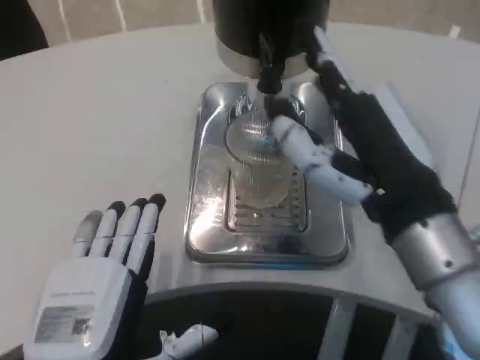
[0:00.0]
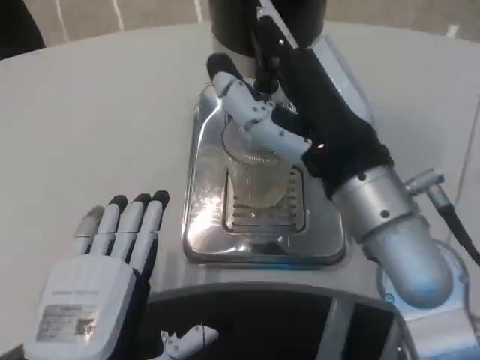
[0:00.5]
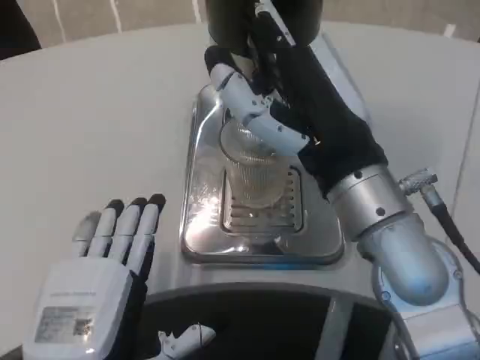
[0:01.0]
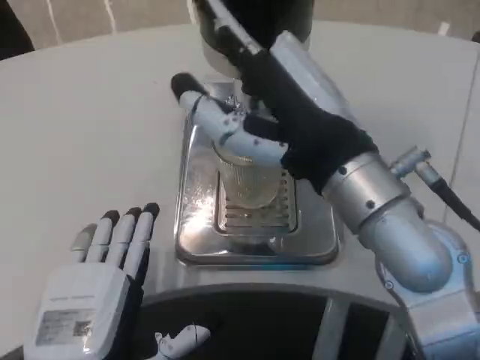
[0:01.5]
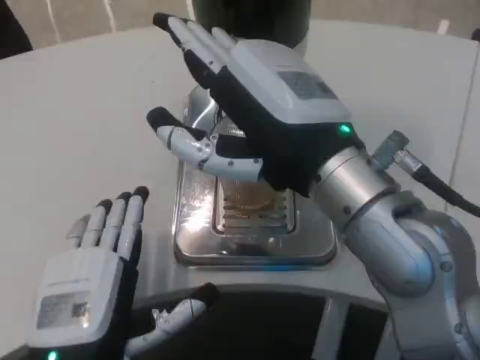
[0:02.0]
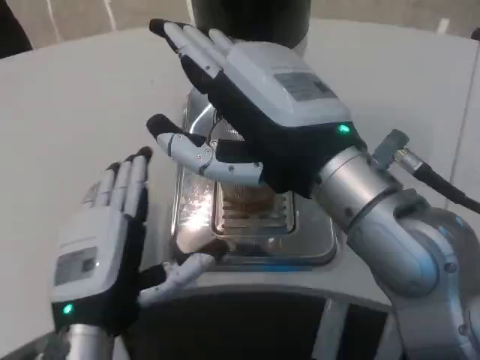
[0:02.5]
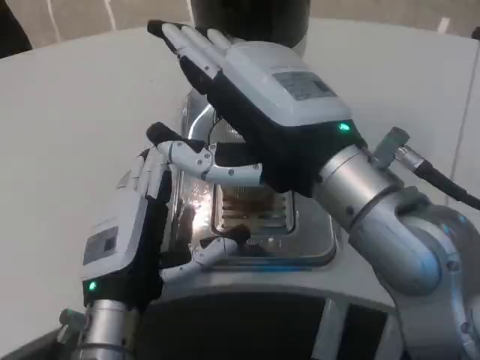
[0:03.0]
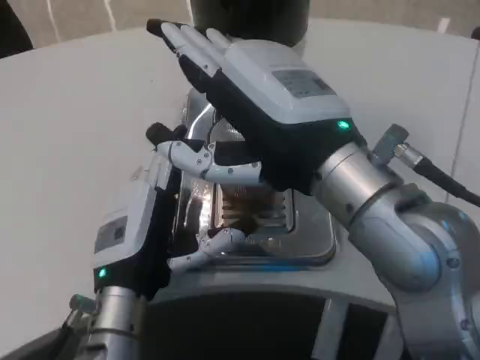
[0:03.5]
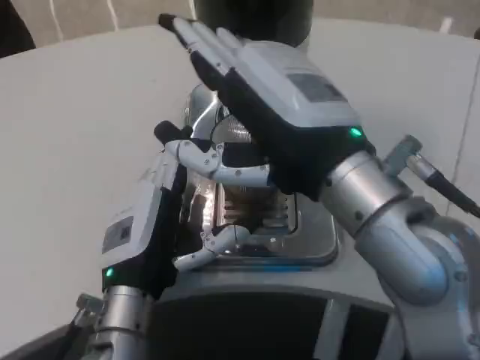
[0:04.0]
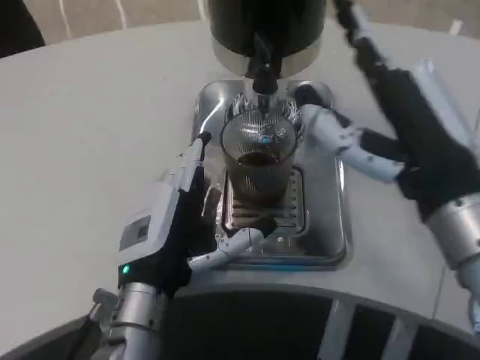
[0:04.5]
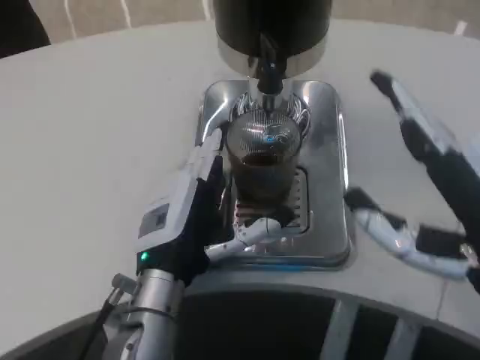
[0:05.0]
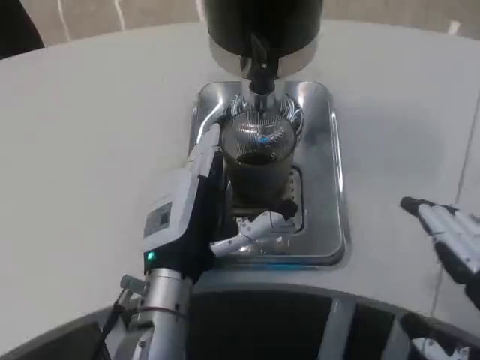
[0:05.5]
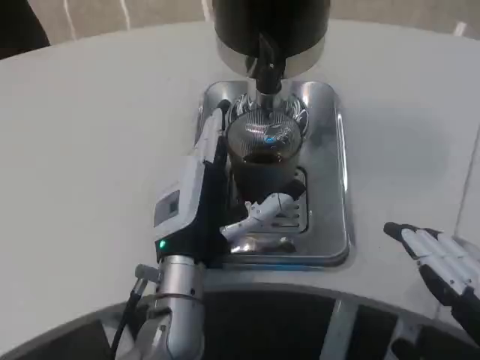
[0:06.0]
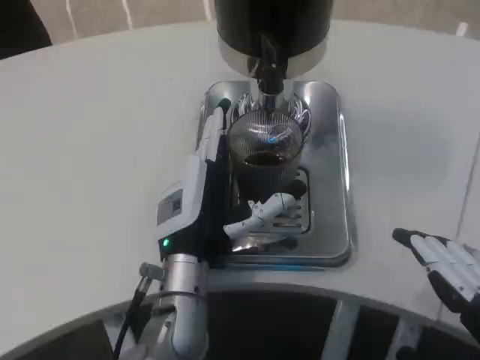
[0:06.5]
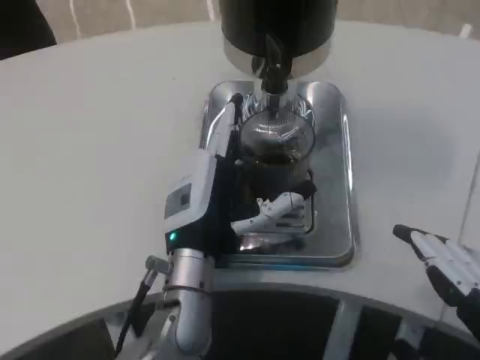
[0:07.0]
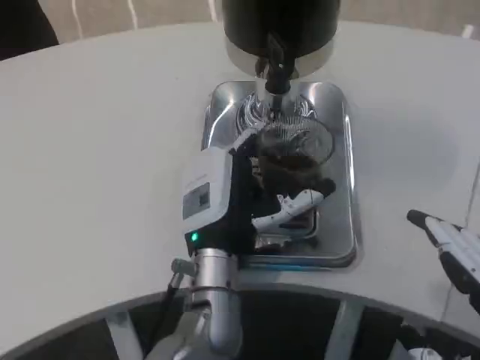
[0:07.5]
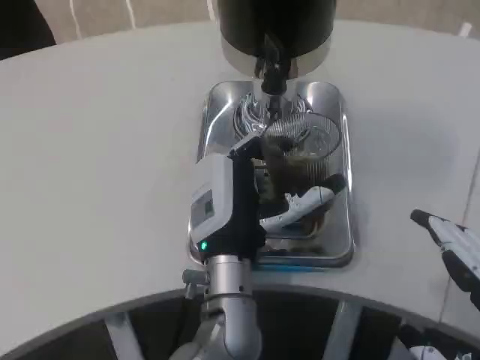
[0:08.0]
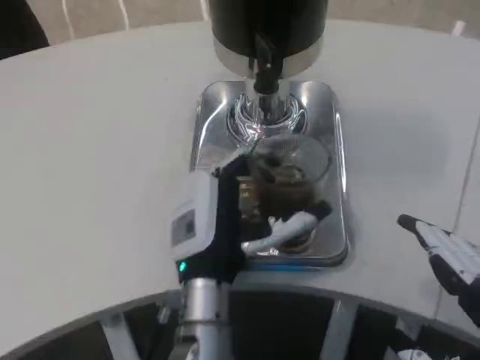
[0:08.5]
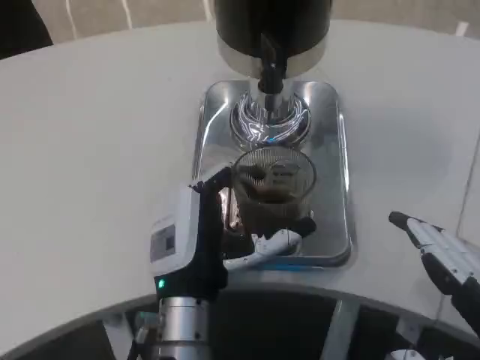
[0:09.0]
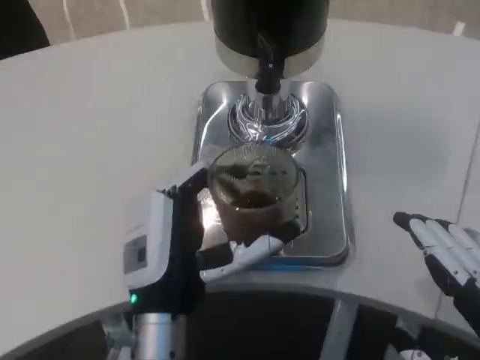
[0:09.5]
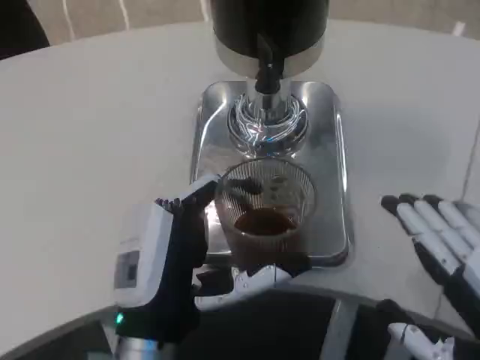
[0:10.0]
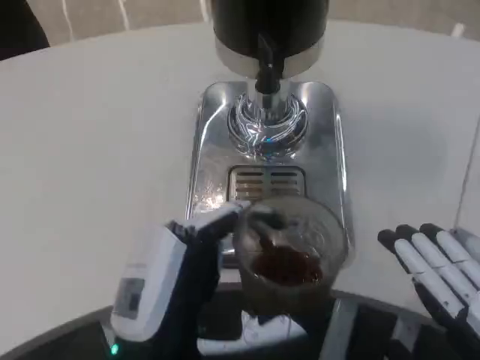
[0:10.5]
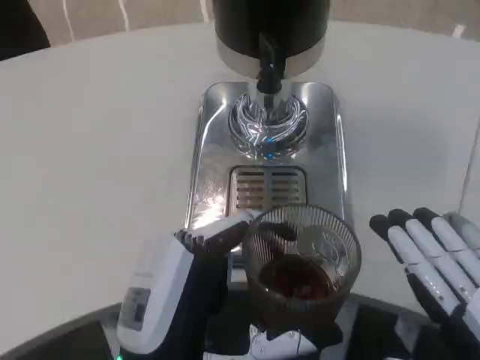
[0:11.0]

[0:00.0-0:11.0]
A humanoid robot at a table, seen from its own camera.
Task of the whole recording: Grasp the cup under the faucet to collect the drink, then remove the cup.
0:00.0 to 0:02.0: The right hand shifts by some 5 cm.
0:02.0 to 0:03.5: The left hand heads forward, covering some 10 cm.
0:03.5 to 0:05.5: The right hand moves to the right, backward and downward, about 20 cm.
0:05.5 to 0:07.5: The left hand shifts about 5 cm to the right.
0:07.5 to 0:09.0: The left hand ends up about 5 cm from where it was.
0:09.0 to 0:11.0: The left hand shifts about 10 cm backward.

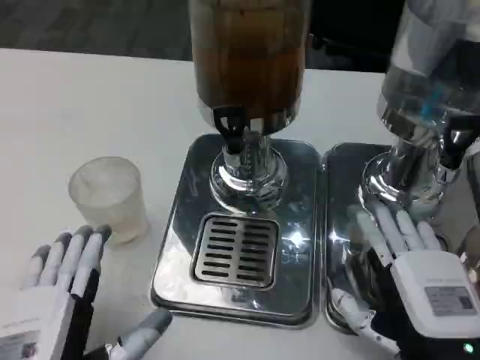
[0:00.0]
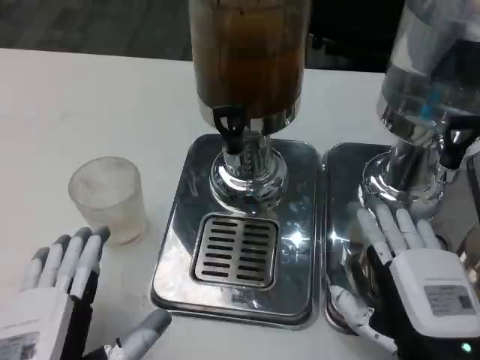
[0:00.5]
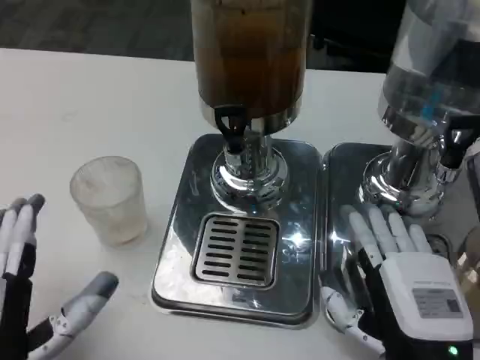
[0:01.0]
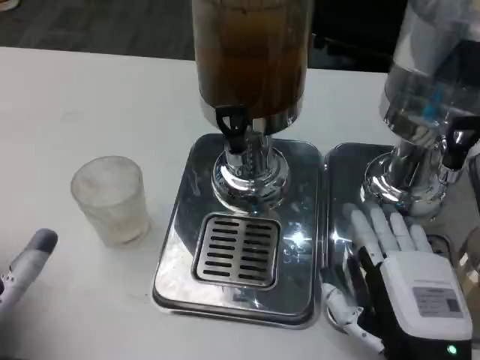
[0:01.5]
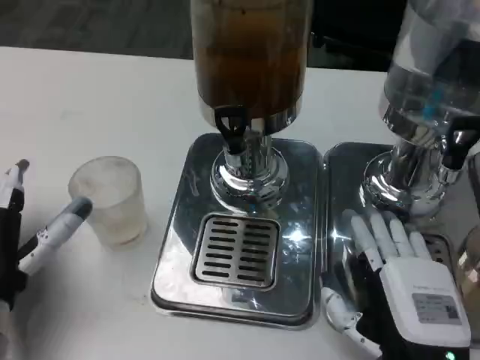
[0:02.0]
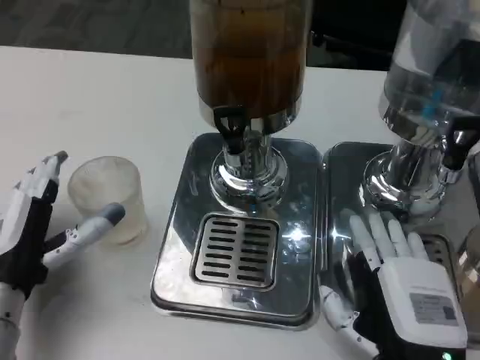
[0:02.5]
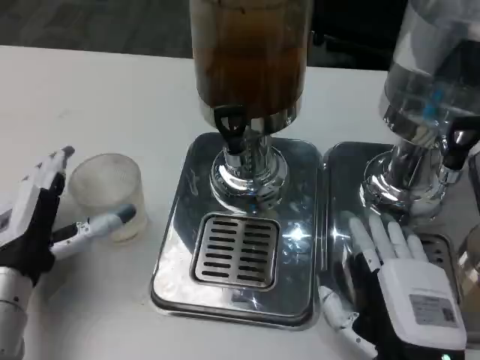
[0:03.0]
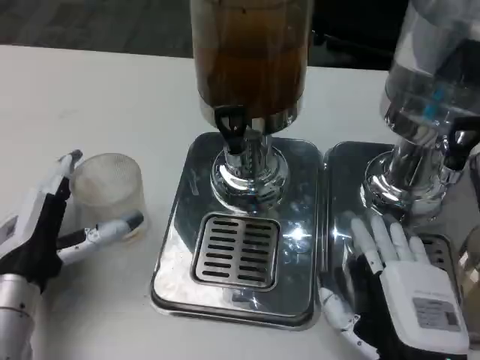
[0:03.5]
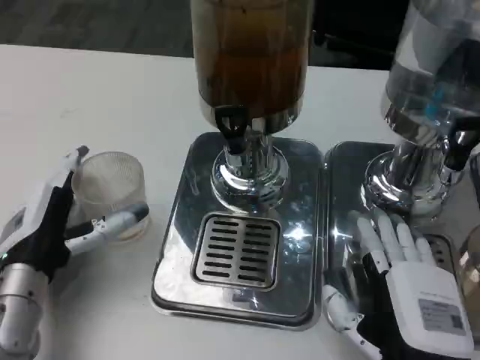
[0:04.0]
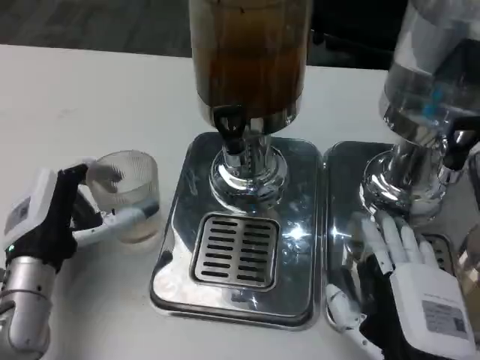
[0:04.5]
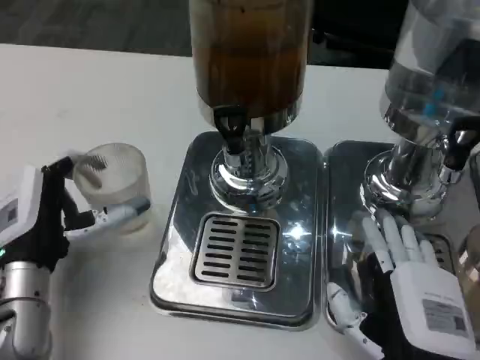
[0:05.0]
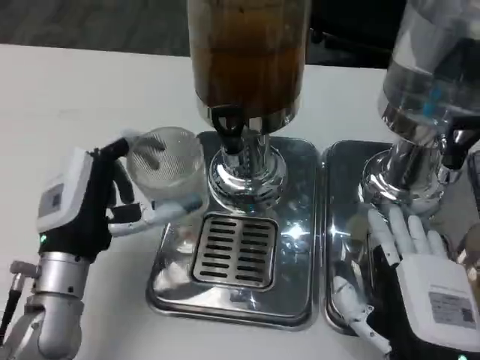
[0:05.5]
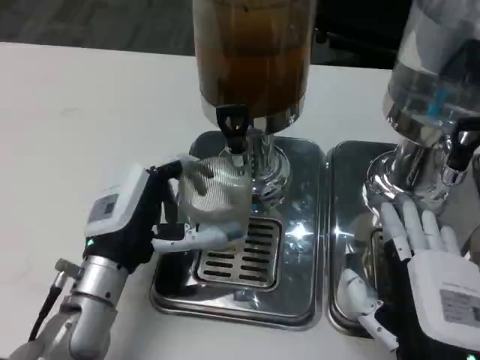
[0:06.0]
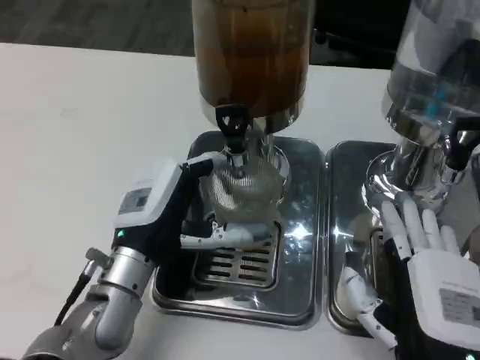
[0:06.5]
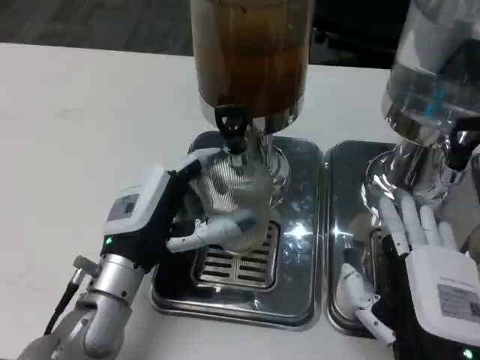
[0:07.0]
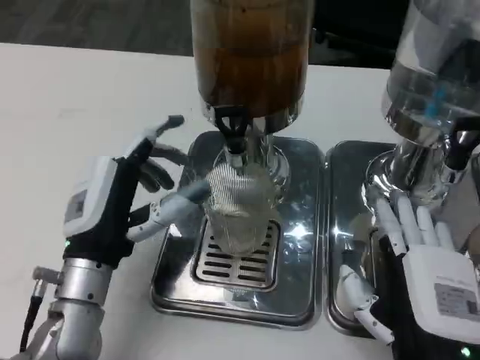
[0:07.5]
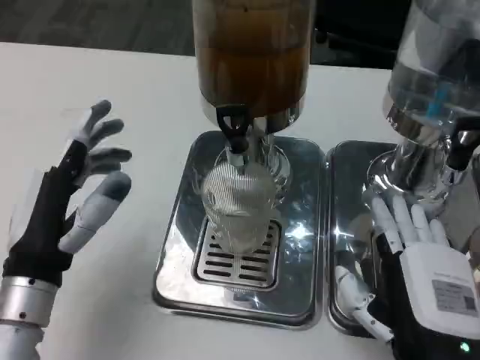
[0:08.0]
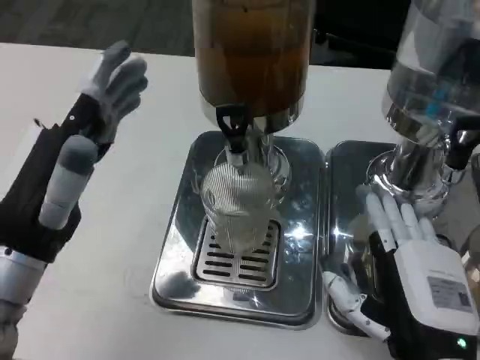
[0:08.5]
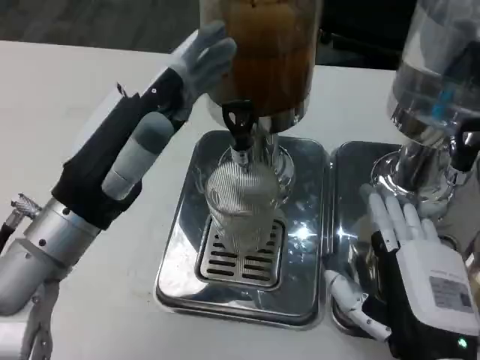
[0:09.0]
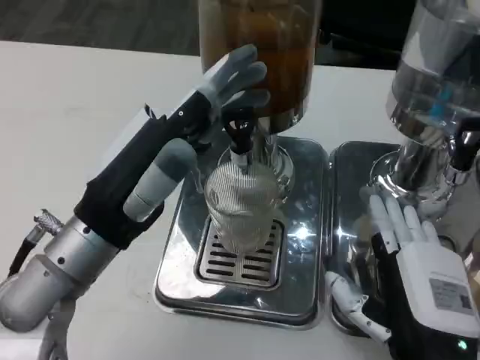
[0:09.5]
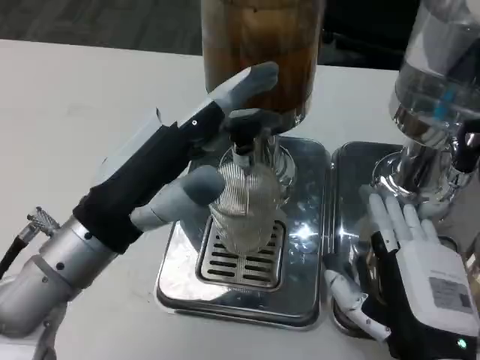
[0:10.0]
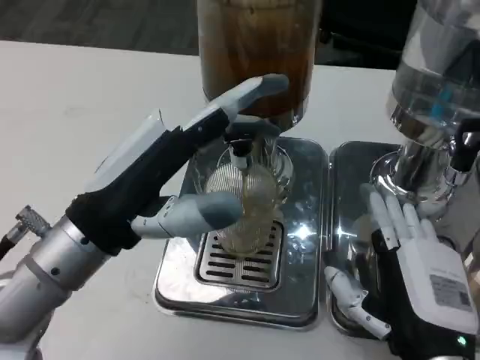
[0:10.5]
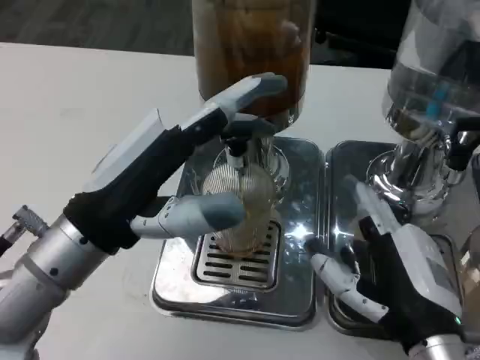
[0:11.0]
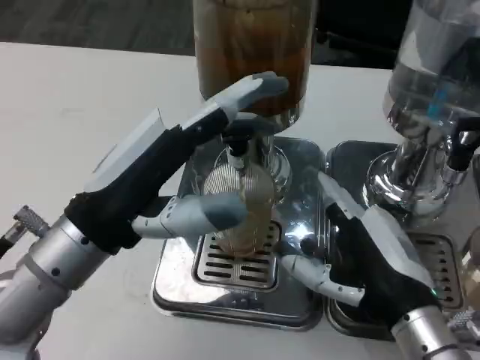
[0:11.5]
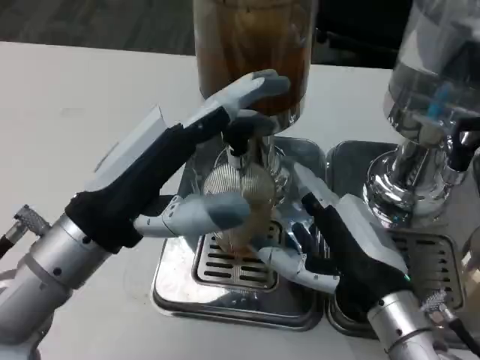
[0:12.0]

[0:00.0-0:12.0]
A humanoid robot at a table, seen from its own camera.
Task of the whole recording: Grasp the cup under the faucet to collect the drink, then remove the cup.
0:00.0 to 0:02.0: The left hand is displaced forward and to the left by approximately 15 cm.
0:02.0 to 0:04.0: The hands move only a little.
0:04.0 to 0:06.0: The left hand moves to the right, roughly 5 cm.
0:06.0 to 0:08.0: The left hand goes roughly 5 cm to the left.
0:08.0 to 0:10.0: The left hand travels upward by roughly 10 cm.
0:10.0 to 0:12.0: The right hand moves forward, about 5 cm.

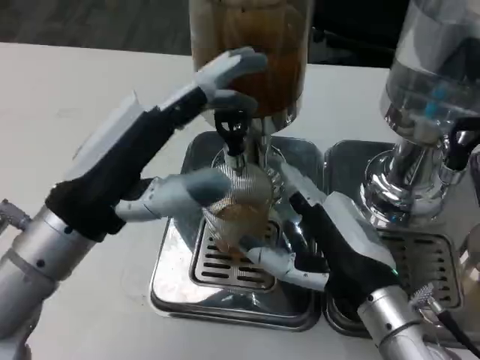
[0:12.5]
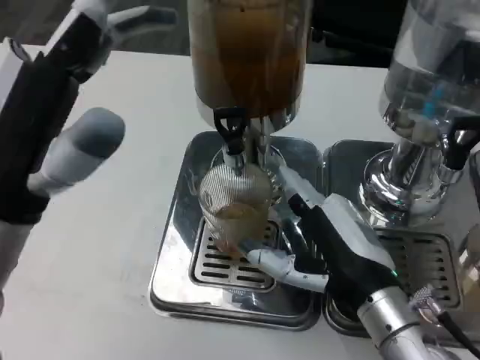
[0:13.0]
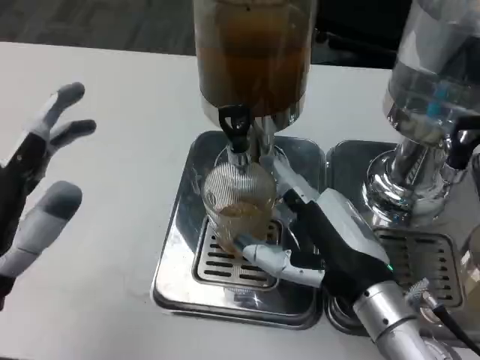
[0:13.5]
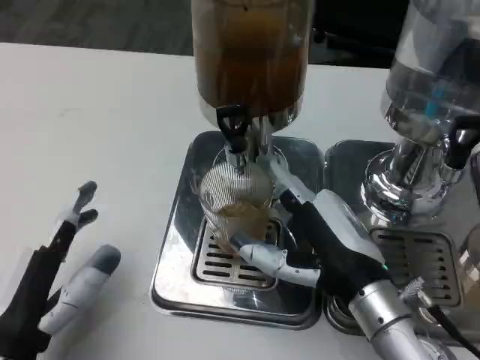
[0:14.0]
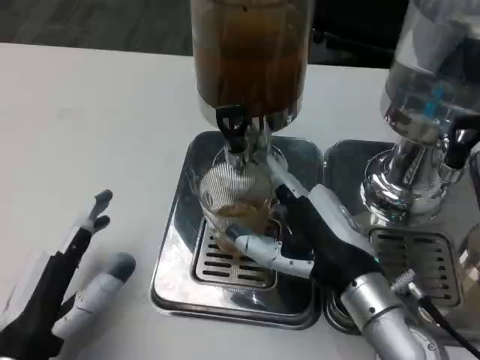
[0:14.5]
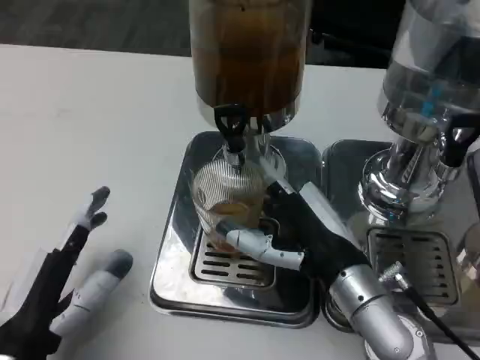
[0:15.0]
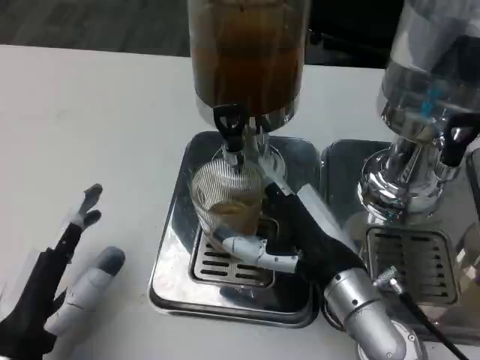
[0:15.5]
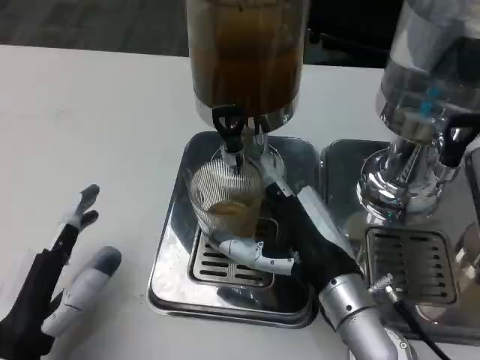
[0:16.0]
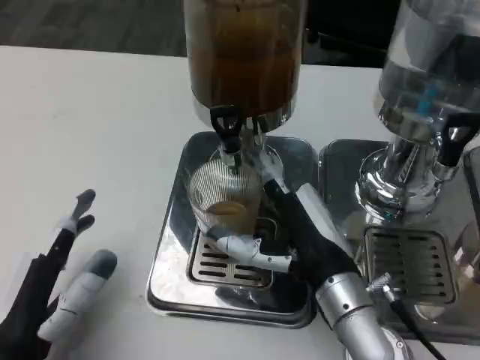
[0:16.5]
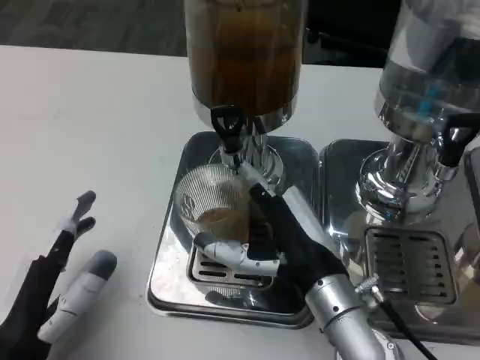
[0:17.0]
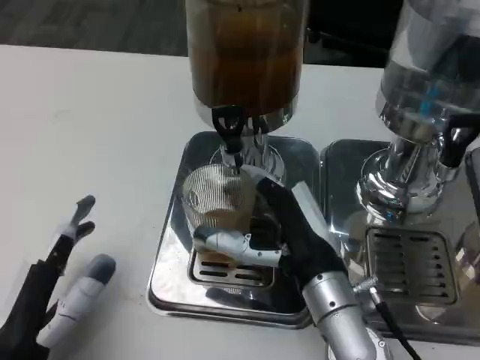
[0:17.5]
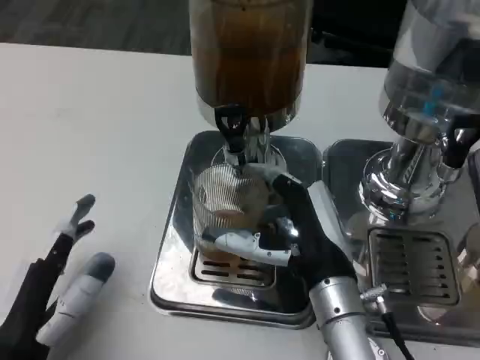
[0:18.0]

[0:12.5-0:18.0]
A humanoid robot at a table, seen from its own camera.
Task of the whole recording: Grasp the cup under the faucet to collect the drink, then remove the cup.
0:12.5 to 0:14.5: The left hand travels downward and backward by some 15 cm.
0:16.0 to 0:18.0: The hands move only a little.
